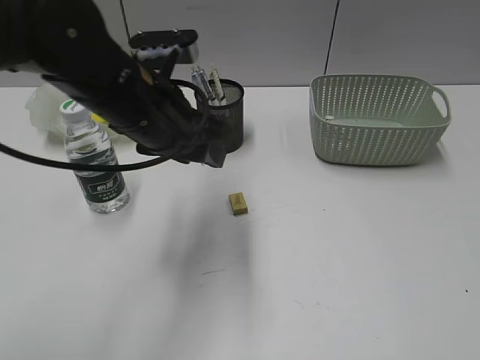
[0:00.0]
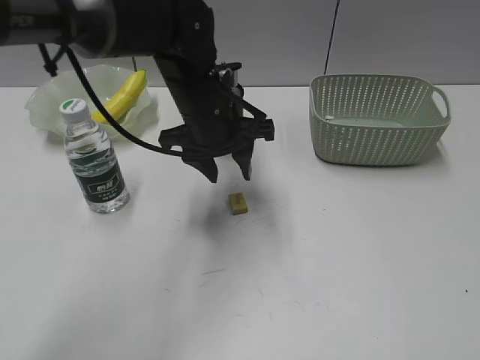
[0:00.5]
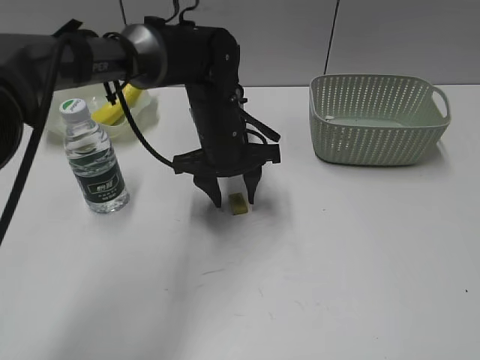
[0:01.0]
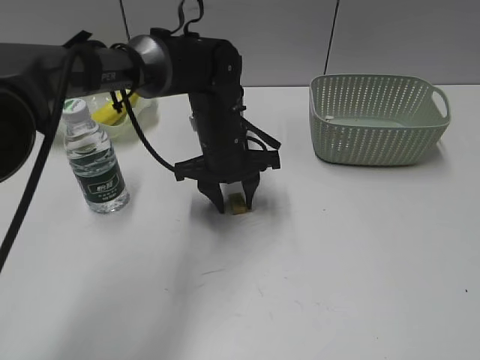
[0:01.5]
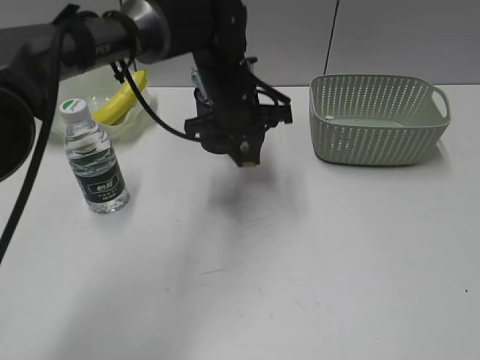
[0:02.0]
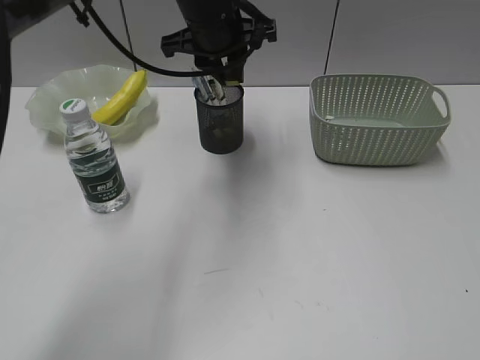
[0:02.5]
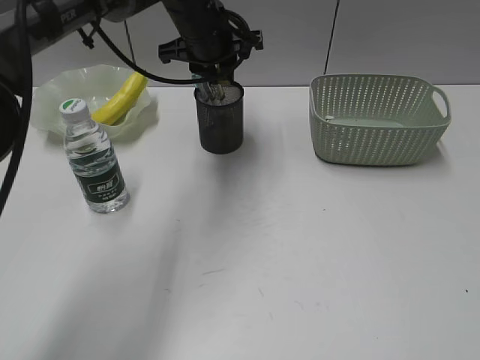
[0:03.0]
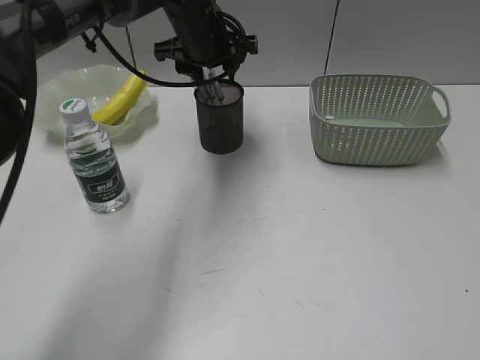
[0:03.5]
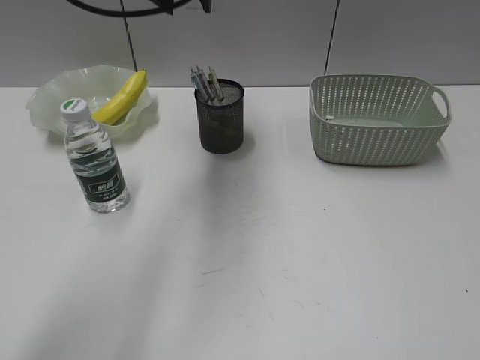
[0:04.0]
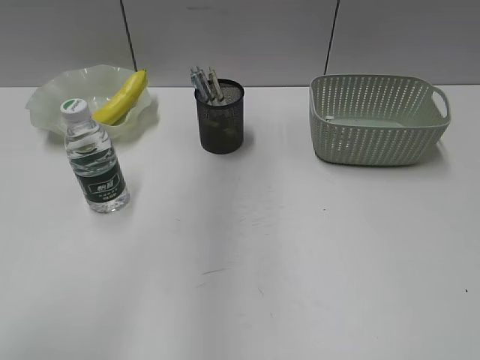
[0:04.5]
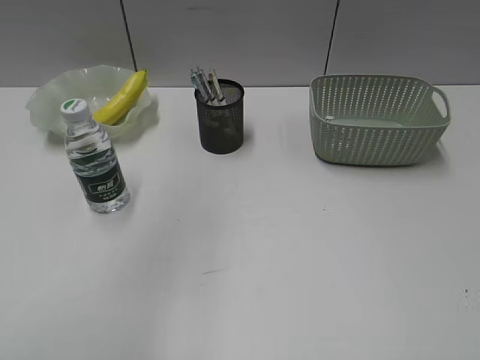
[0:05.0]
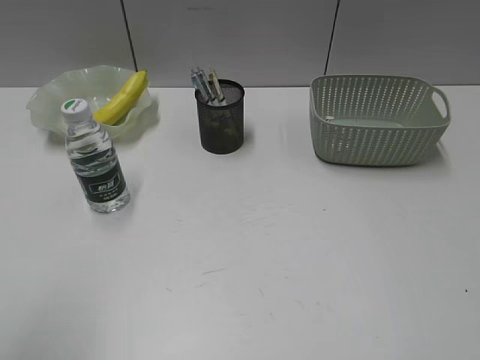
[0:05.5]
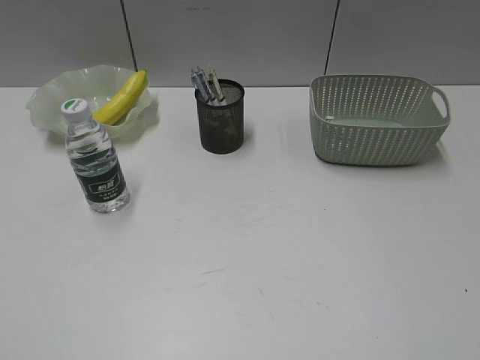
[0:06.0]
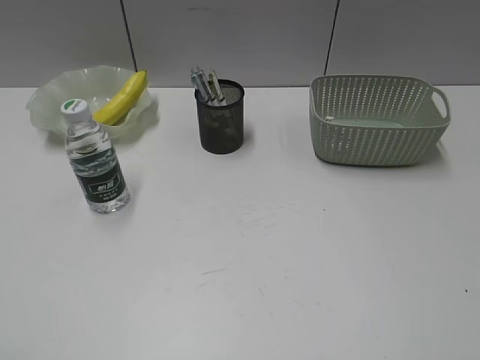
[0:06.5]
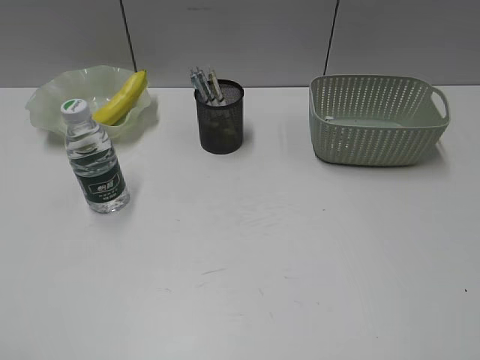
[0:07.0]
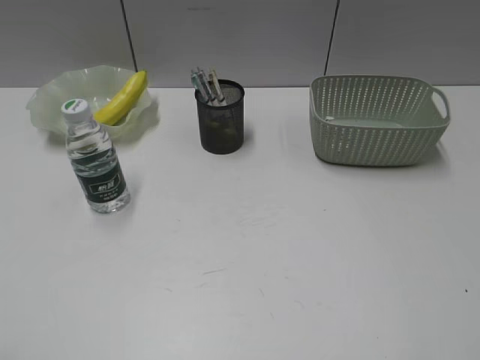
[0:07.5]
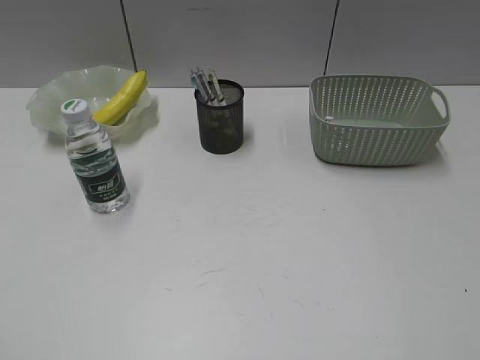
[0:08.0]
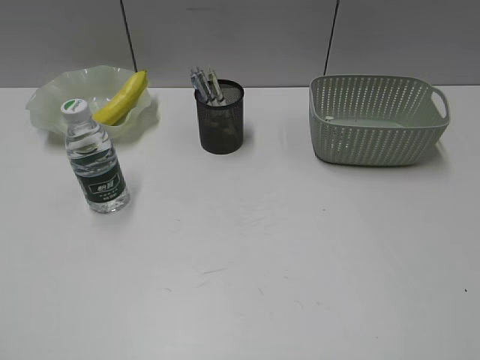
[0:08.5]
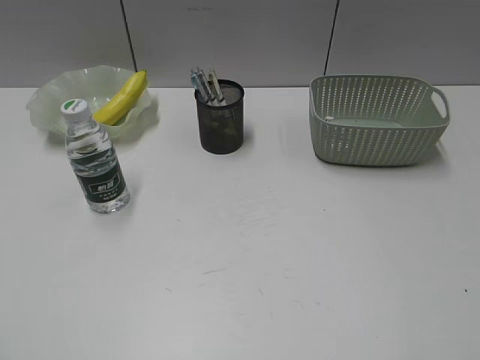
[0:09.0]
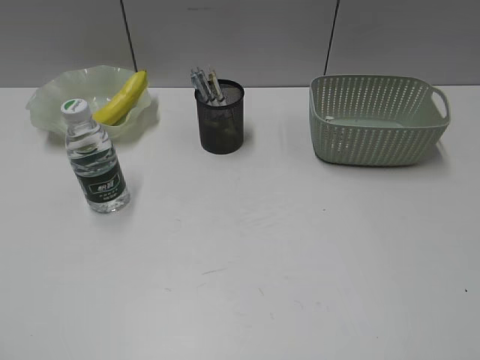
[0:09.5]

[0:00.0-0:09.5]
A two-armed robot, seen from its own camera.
Step, 0:02.0 to 0:03.5: Place the eraser in pen holder with left gripper.
0:00.0 to 0:02.0: The left gripper shifts about 15 cm forward, to the right and downward, and closes its fingers.
0:02.0 to 0:04.0: The left gripper heads upward, covering some 15 cm, and opens up.
0:04.0 to 0:05.5: The left gripper moves backward and to the left, approximately 40 cm.
